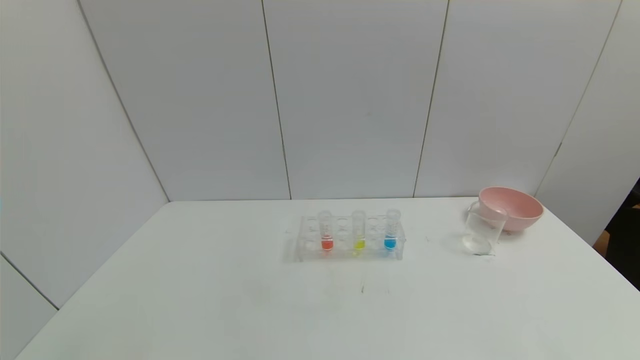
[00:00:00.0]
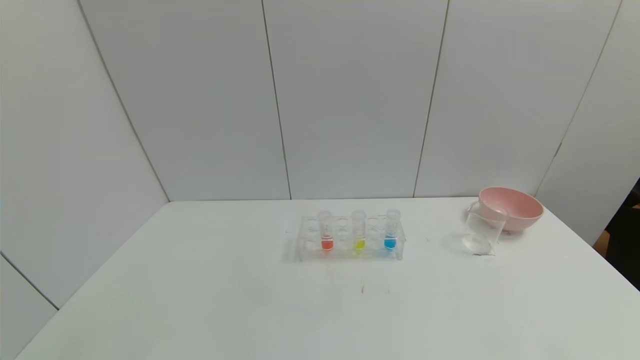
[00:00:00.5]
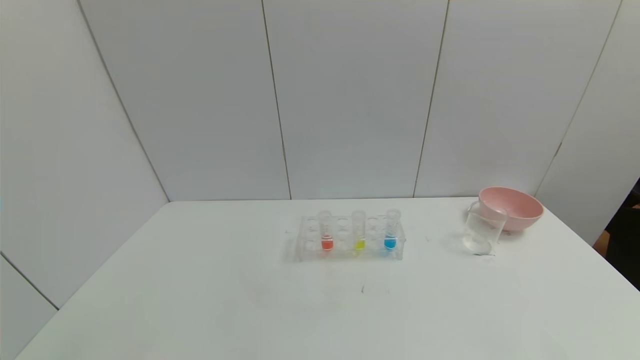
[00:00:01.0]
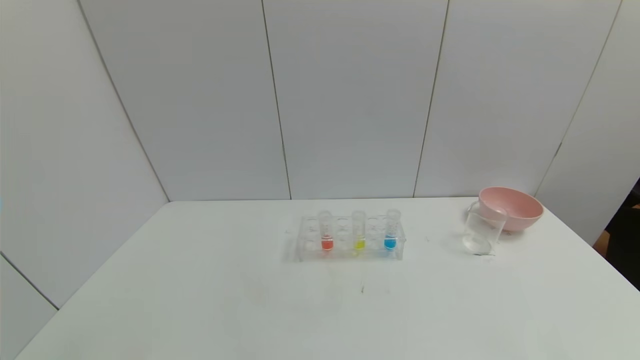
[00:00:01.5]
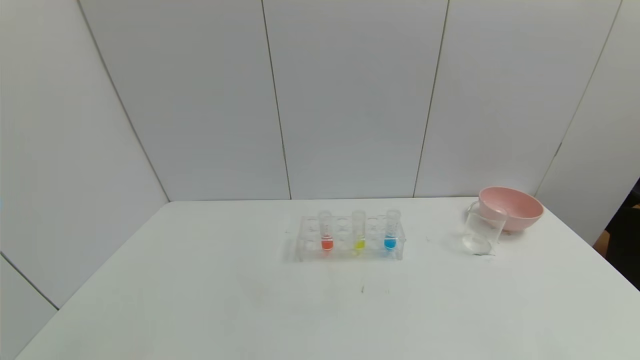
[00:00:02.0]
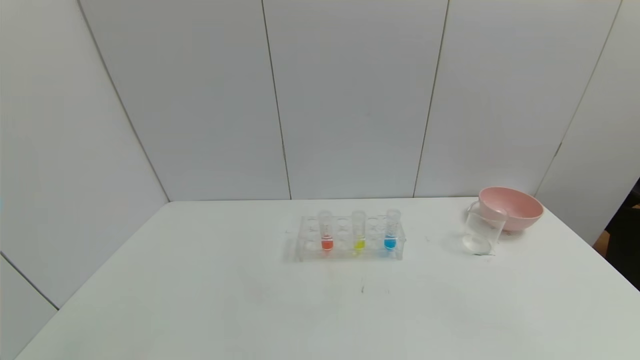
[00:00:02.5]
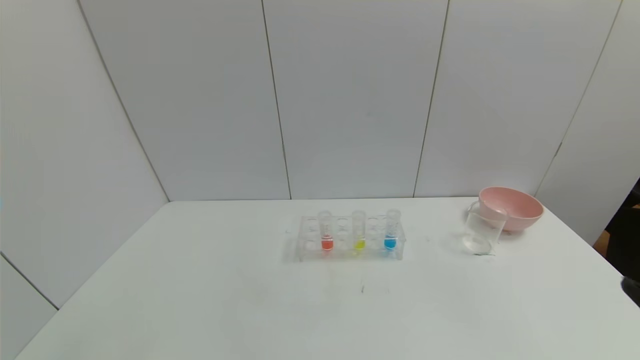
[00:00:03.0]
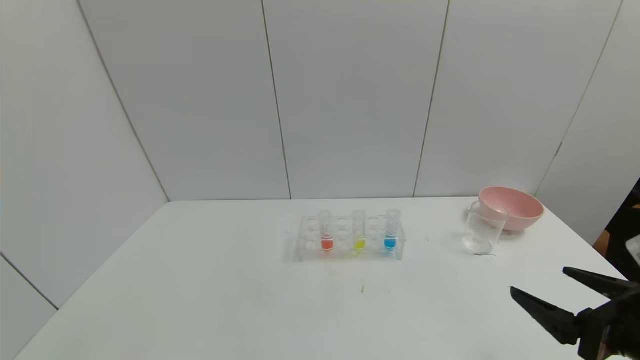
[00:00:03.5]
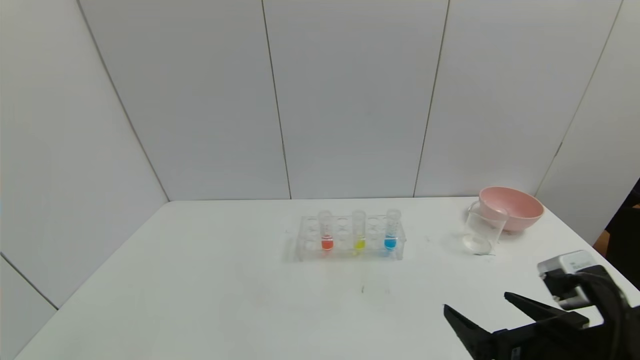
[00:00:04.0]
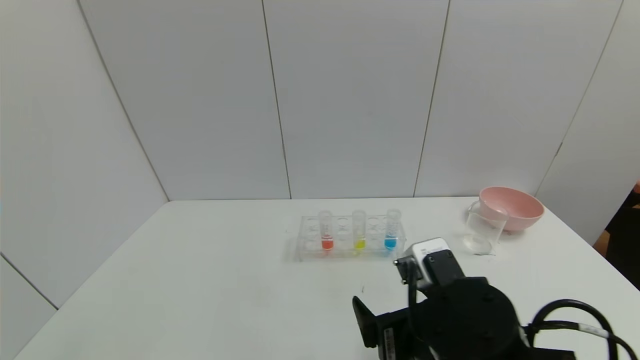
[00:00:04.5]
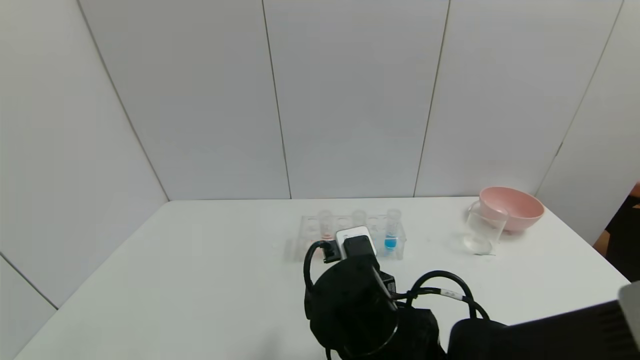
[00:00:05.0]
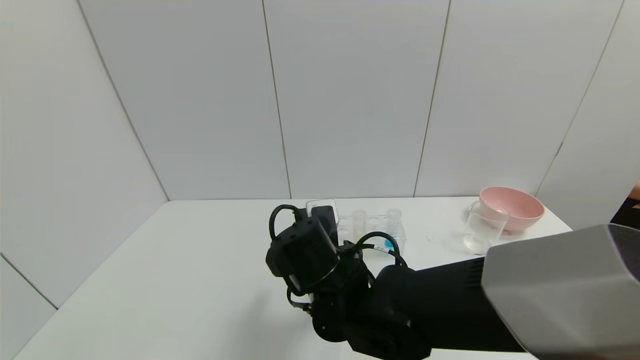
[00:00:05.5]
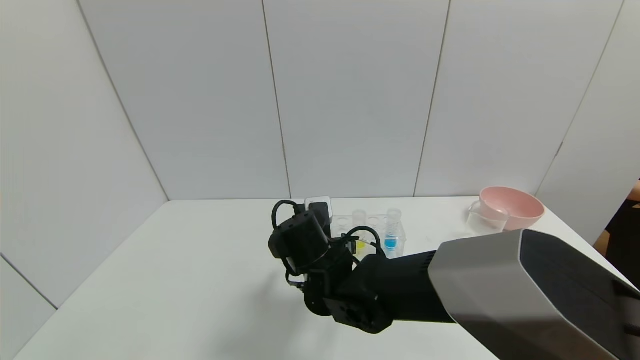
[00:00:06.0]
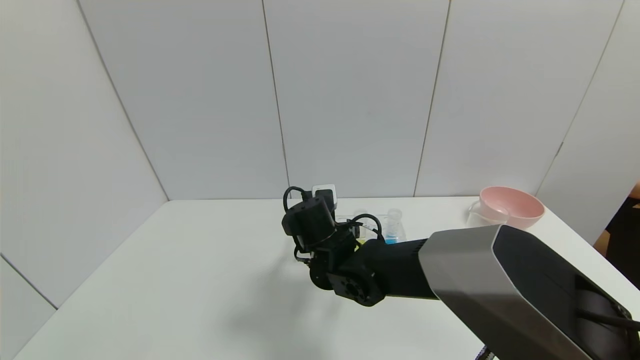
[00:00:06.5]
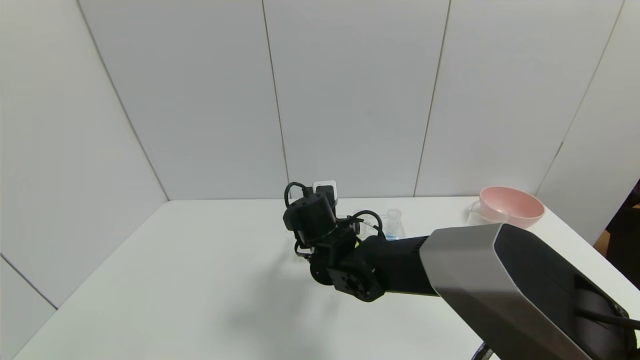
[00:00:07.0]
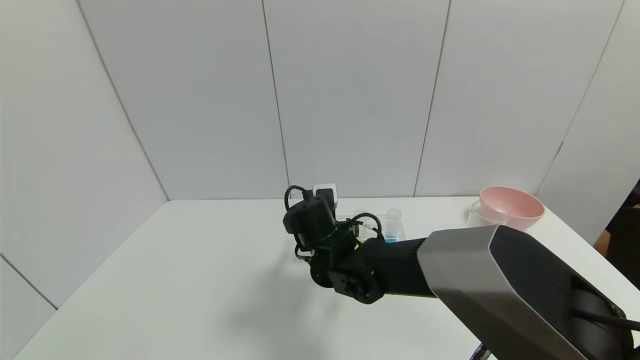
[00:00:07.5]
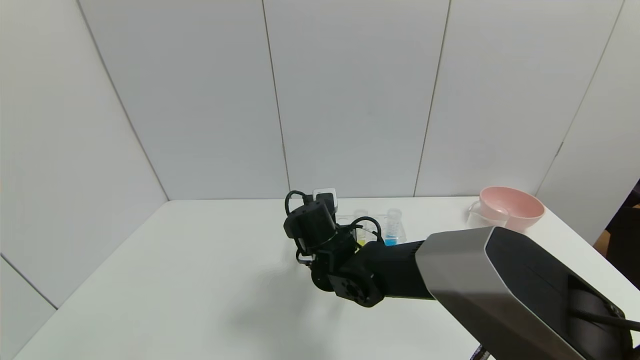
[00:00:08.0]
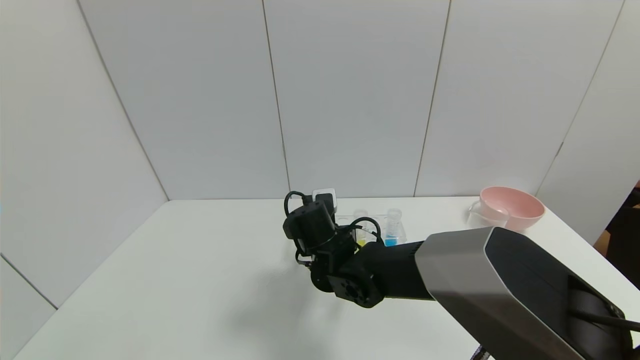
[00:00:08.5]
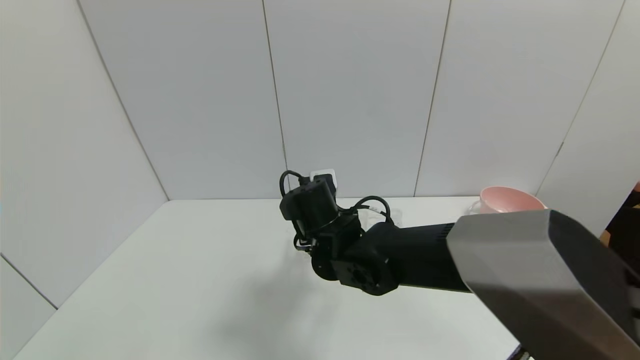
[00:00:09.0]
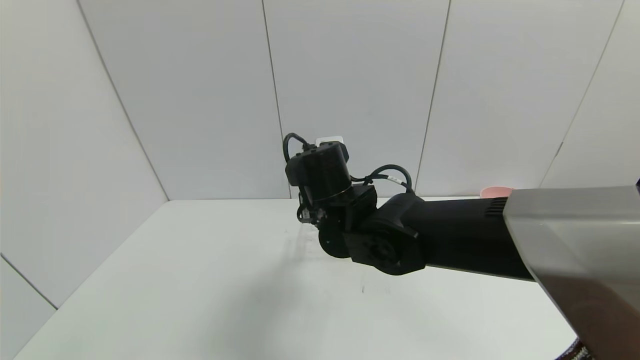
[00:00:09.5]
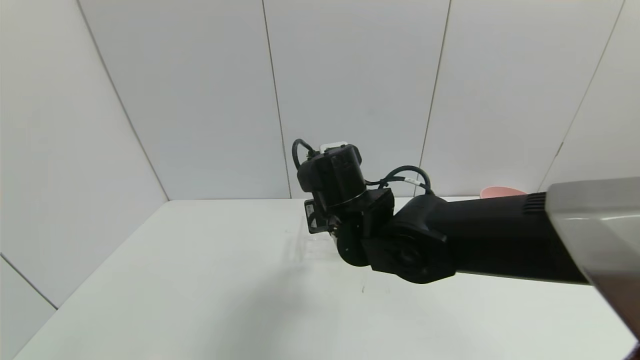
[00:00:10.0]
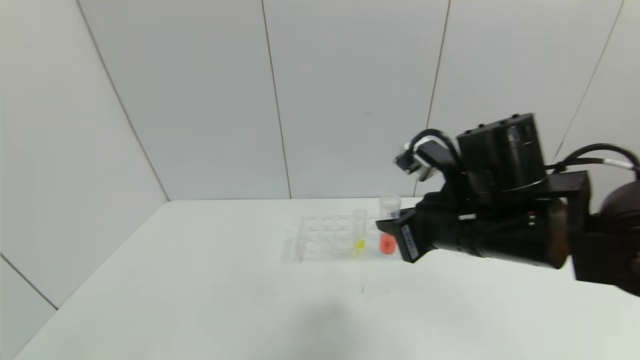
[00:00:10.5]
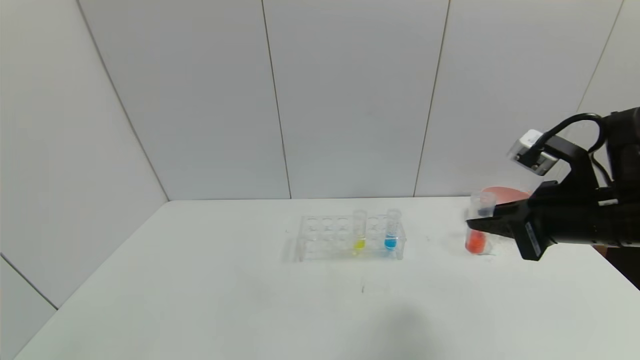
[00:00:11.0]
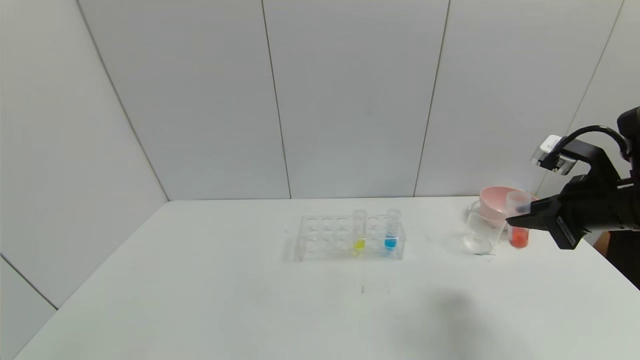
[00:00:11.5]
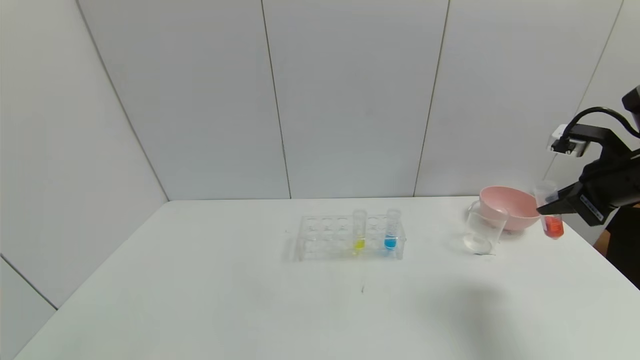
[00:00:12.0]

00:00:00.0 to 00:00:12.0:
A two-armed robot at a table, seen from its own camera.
Task of the whole recording: pick up the test tube with yellow pigment and the test tube with red pigment by grippers and pour them into the beaker.
Step, 00:00:00.0 to 00:00:06.5: Grasp the red reagent with the right gripper.
00:00:00.0 to 00:00:02.0: Both grippers stay put.
00:00:02.0 to 00:00:04.0: The right gripper is displaced forward, to the left and upward by some 20 cm.
00:00:04.0 to 00:00:06.0: The right gripper shifts approximately 30 cm to the left and forward.
00:00:06.0 to 00:00:08.0: The right gripper closes.
00:00:08.0 to 00:00:10.0: The right gripper travels upward by approximately 10 cm.
00:00:10.0 to 00:00:12.0: The right gripper travels to the right by approximately 35 cm.

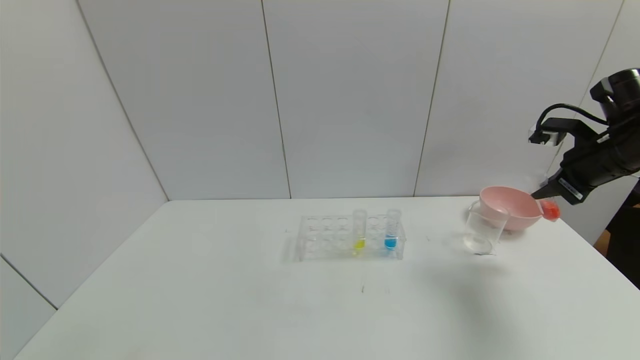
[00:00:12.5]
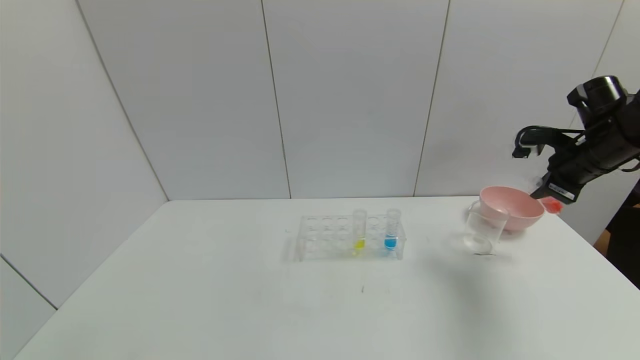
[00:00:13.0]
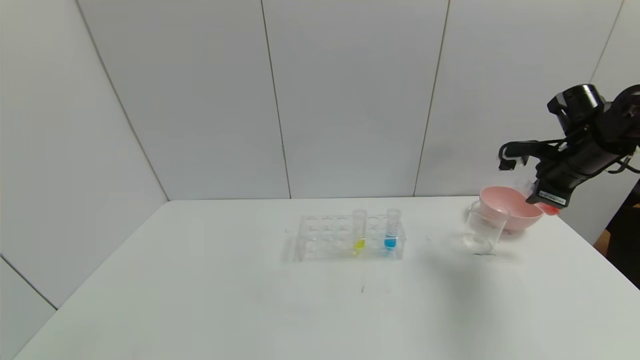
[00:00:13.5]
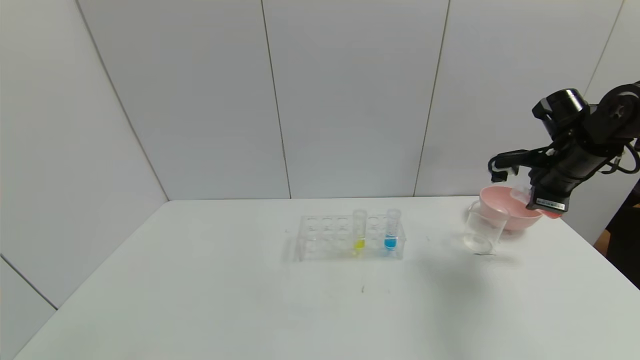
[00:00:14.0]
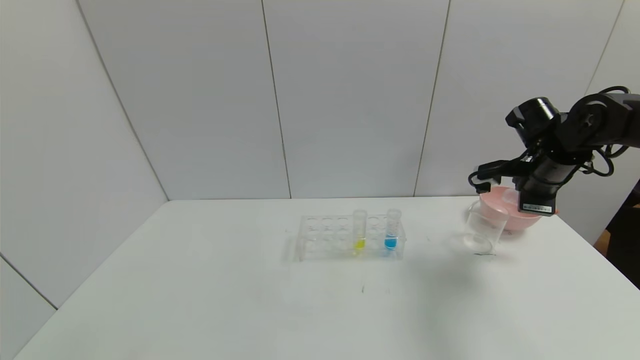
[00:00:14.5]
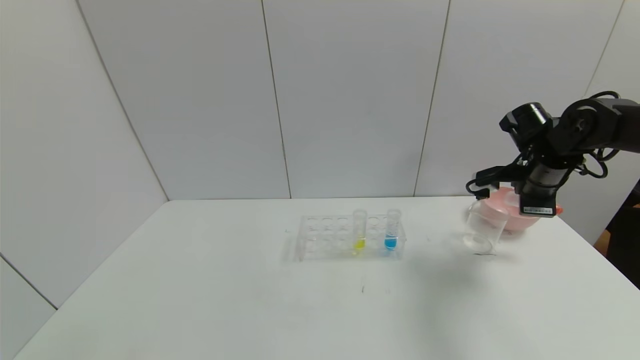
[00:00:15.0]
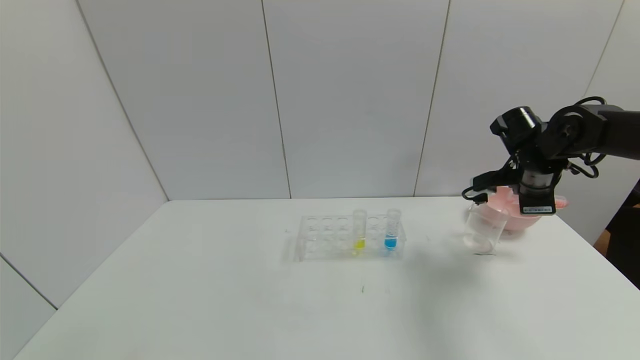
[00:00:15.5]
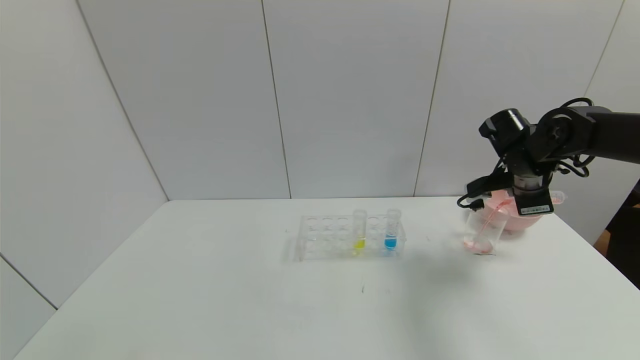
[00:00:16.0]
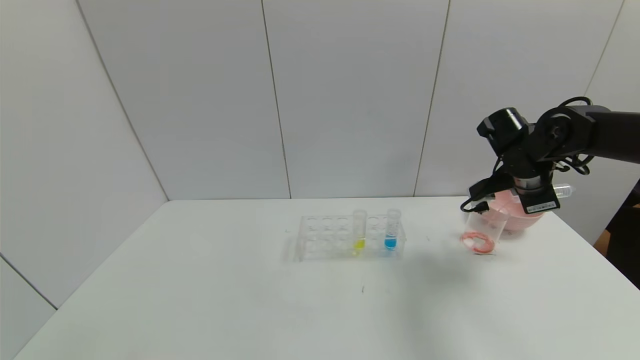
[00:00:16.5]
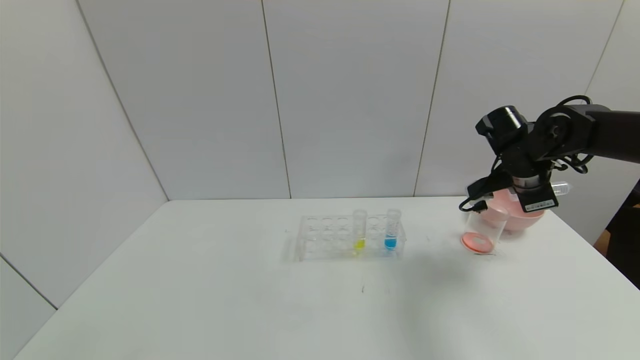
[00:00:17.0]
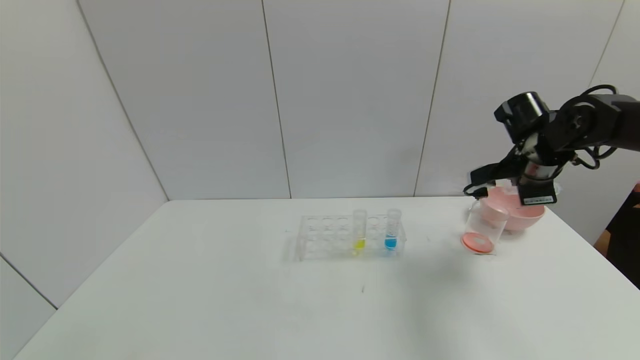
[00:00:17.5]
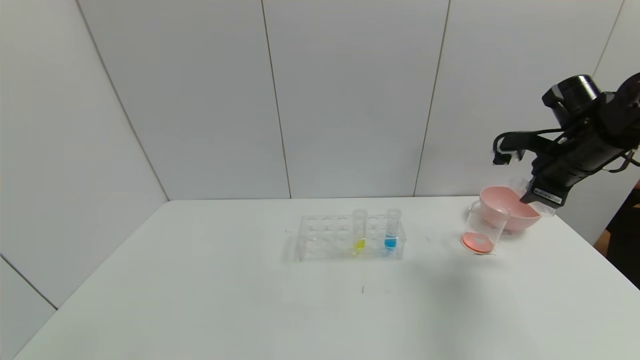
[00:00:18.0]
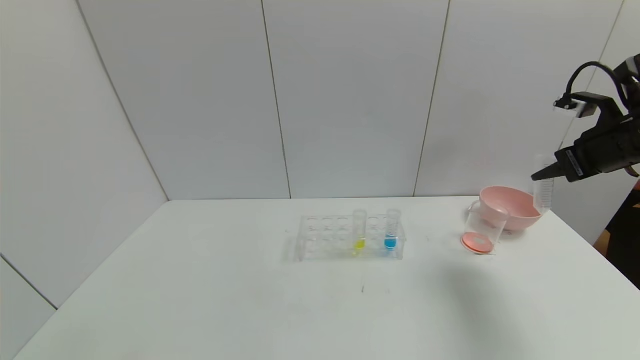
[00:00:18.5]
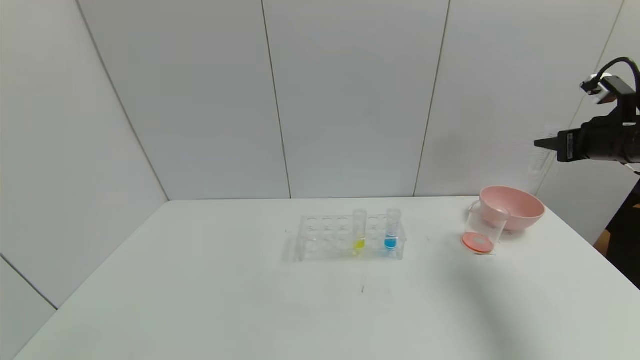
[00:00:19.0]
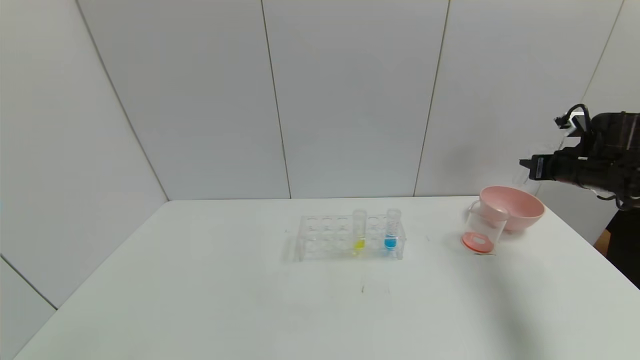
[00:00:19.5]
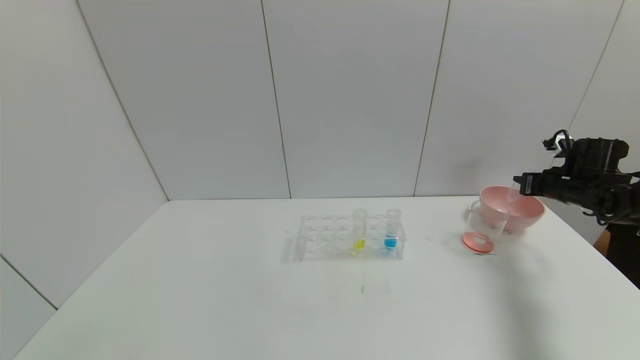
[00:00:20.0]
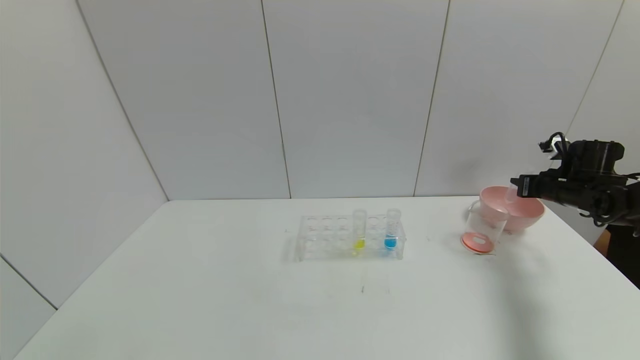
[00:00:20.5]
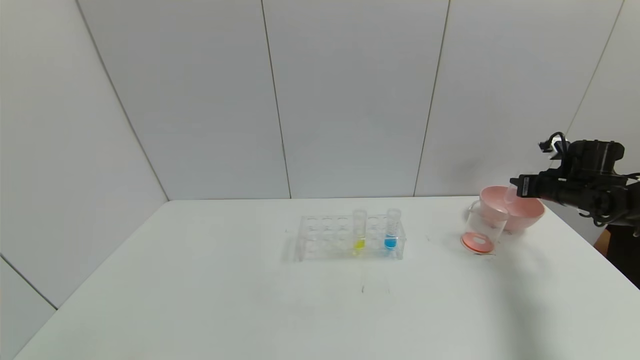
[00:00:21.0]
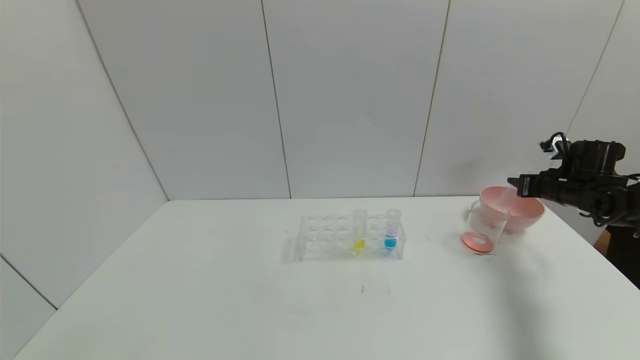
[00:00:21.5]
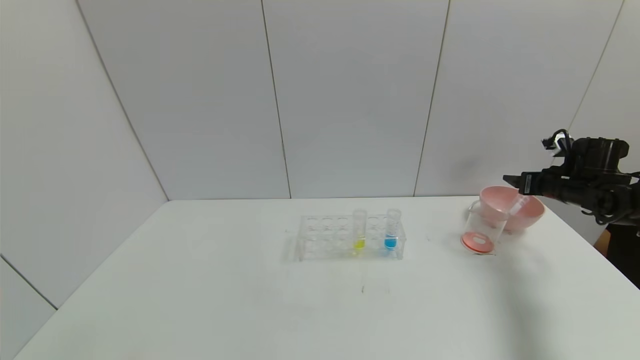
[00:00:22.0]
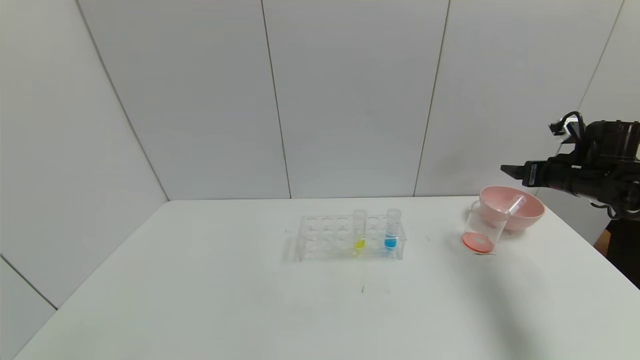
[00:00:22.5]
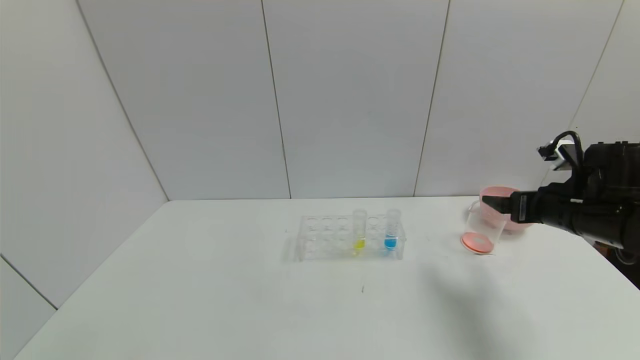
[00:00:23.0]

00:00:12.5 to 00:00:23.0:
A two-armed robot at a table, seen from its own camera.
Task of the whole recording: pick up the test tube with yellow pigment and the test tube with red pigment by grippers and pour them into the beaker.
Step, 00:00:12.5 to 00:00:17.0: Pour the red reagent into the graduated cylinder with the right gripper.
Step, 00:00:17.5 to 00:00:20.5: Place the test tube into the pink bowl with the right gripper.
00:00:12.5 to 00:00:14.5: The right gripper heads to the left, covering approximately 5 cm.
00:00:16.5 to 00:00:19.0: The right gripper heads to the right and upward, covering approximately 15 cm.
00:00:19.0 to 00:00:21.0: The right gripper shifts about 15 cm downward and forward.
00:00:21.0 to 00:00:23.0: The right gripper shifts roughly 20 cm backward and to the left, and opens up.
